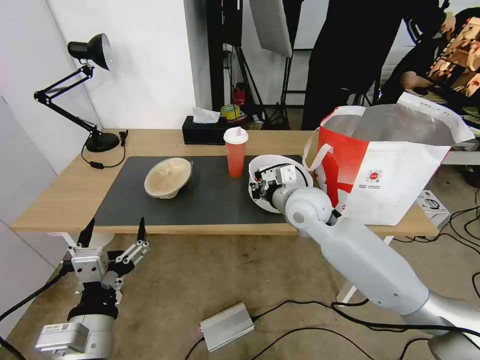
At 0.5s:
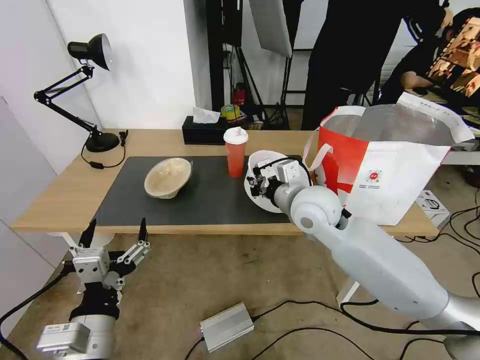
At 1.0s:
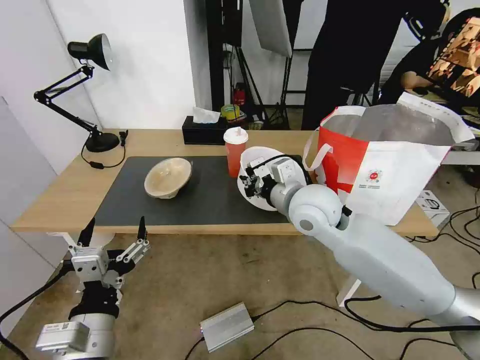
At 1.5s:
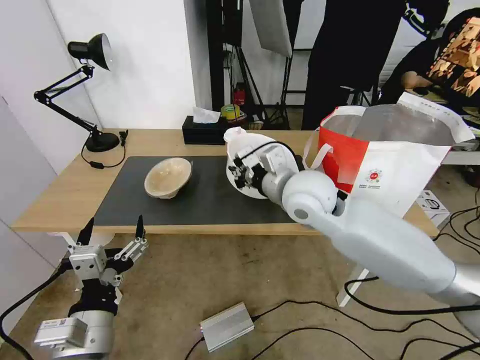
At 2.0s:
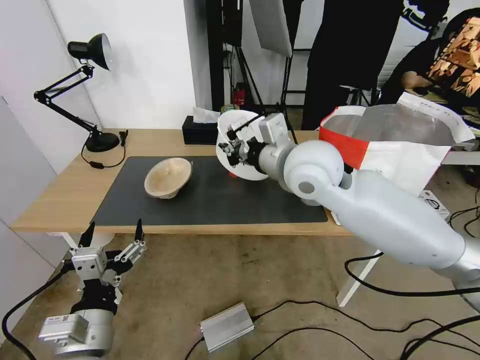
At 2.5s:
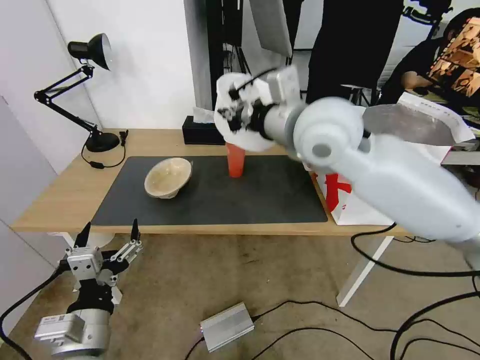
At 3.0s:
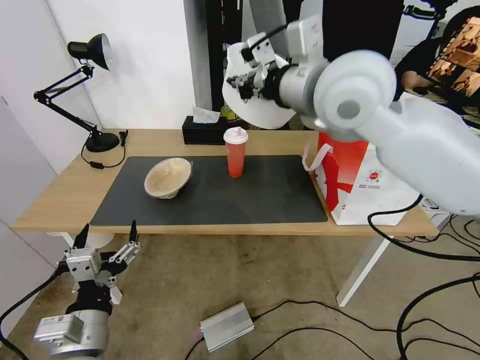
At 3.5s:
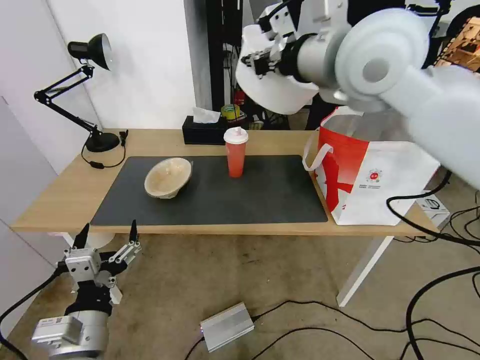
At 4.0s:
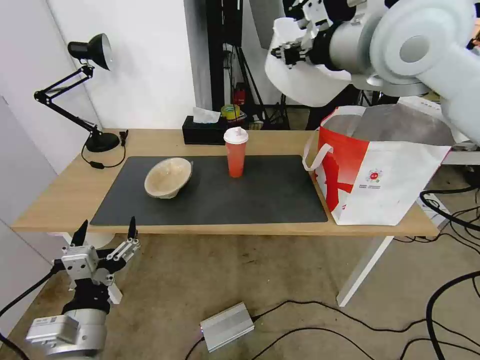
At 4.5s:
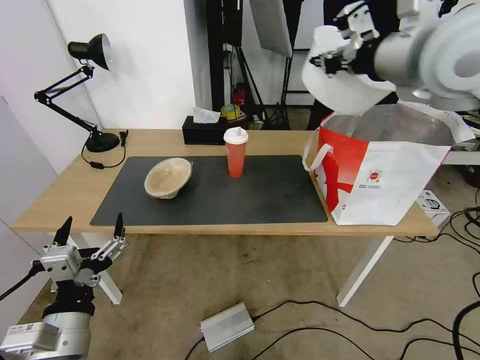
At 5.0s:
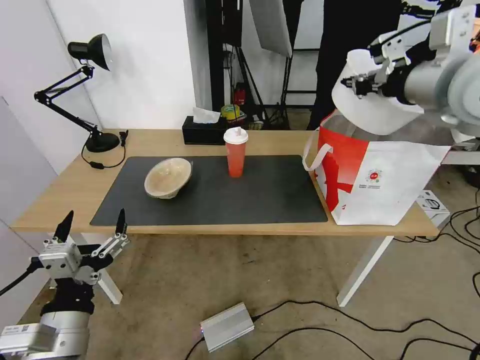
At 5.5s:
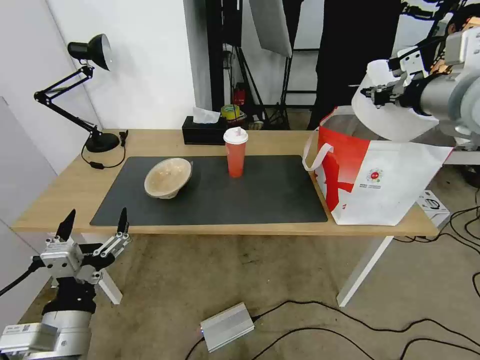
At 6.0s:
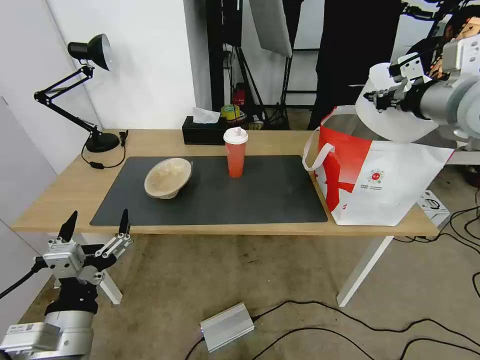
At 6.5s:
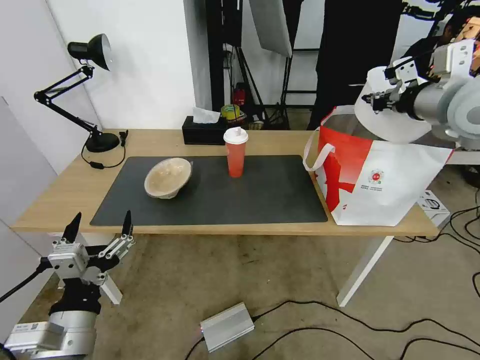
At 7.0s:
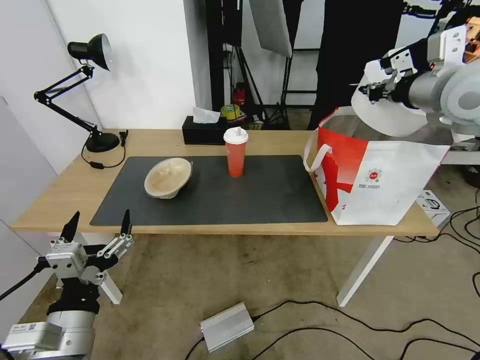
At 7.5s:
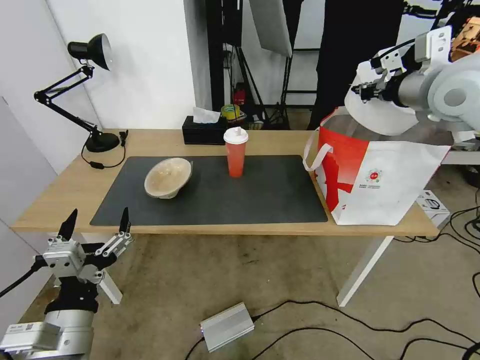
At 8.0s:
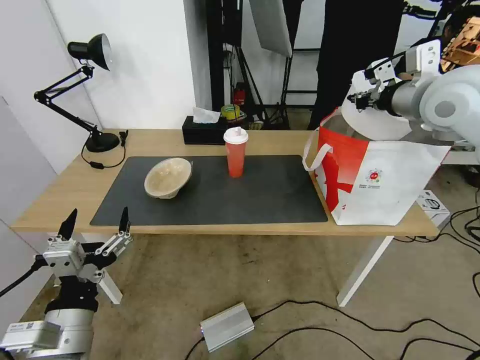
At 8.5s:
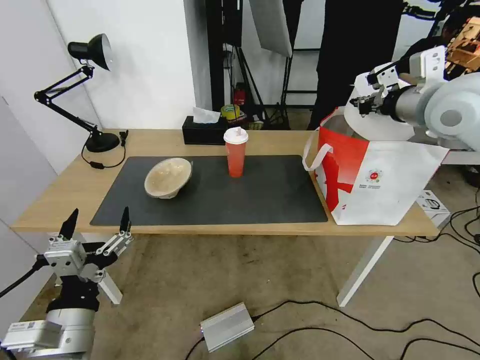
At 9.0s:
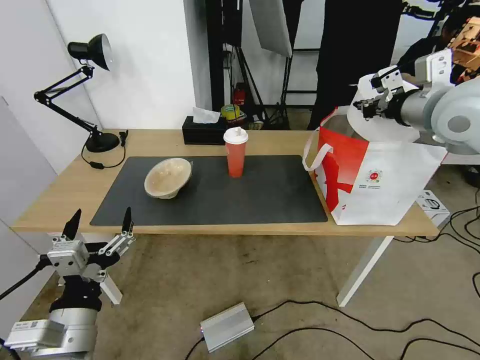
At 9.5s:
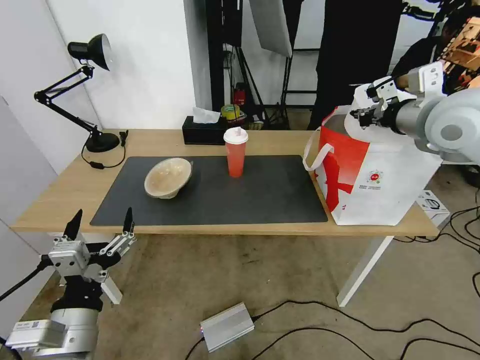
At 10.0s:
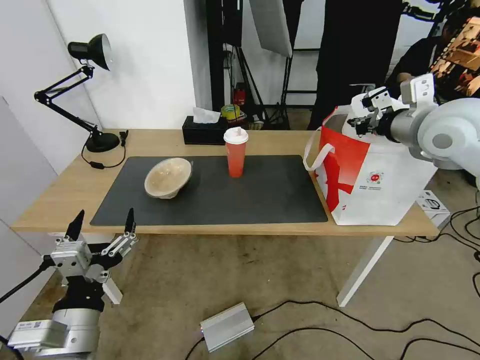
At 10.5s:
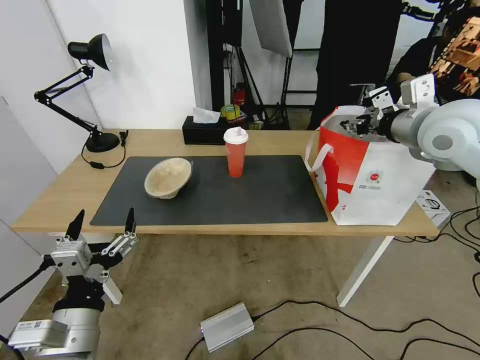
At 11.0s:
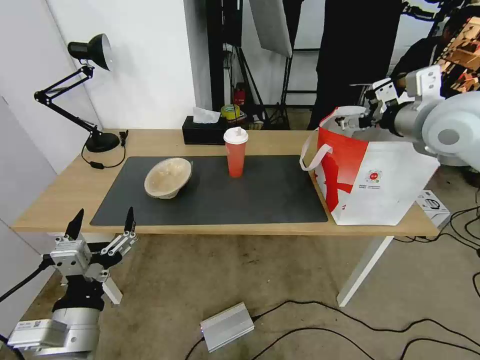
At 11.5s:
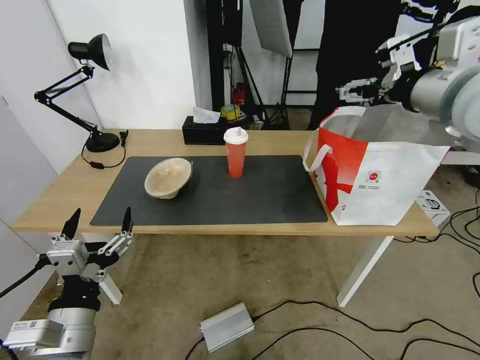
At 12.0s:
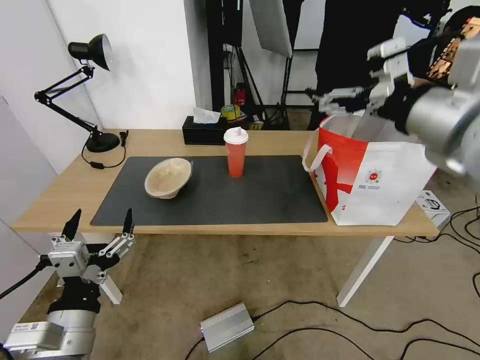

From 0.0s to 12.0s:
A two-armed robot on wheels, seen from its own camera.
Task of the whole recording: Pick up the trash from the table and place it into the takeout bag.
From 0.0s to 2.0s: The right gripper moves upward, some 15 cm.
From 2.0s to 4.0s: The right gripper travels upward and to the right by roughly 20 cm.
From 4.0s to 6.0s: The right gripper goes roughly 15 cm to the right and downward.
From 6.0s to 8.0s: The right gripper travels forward by some 5 cm.
From 8.0s to 10.0s: The grippers move only a little.
From 10.0s to 12.0s: The right gripper heads backward, to the left and upward, covering about 15 cm, and opens its fingers.

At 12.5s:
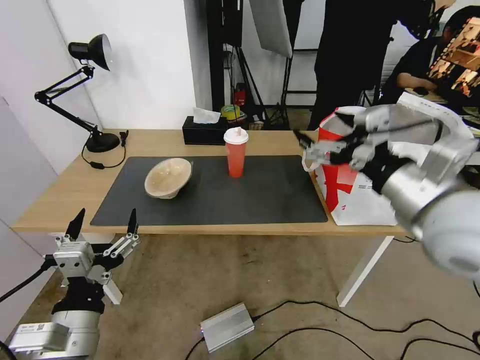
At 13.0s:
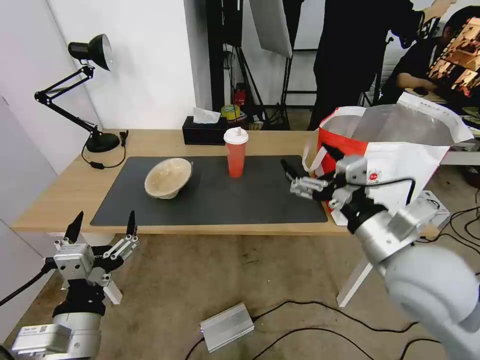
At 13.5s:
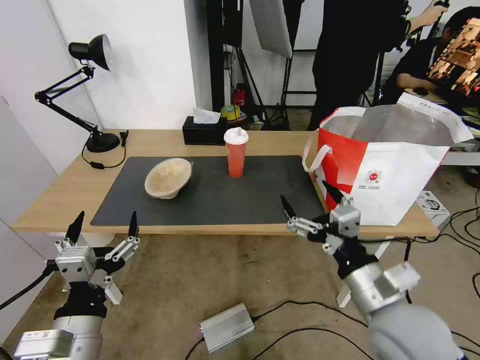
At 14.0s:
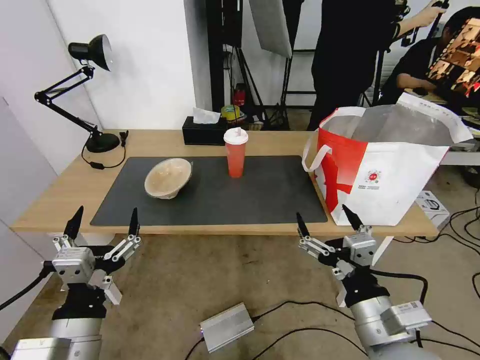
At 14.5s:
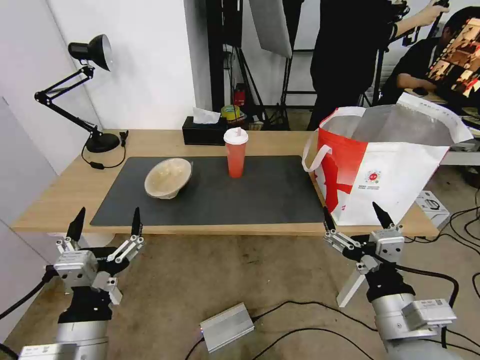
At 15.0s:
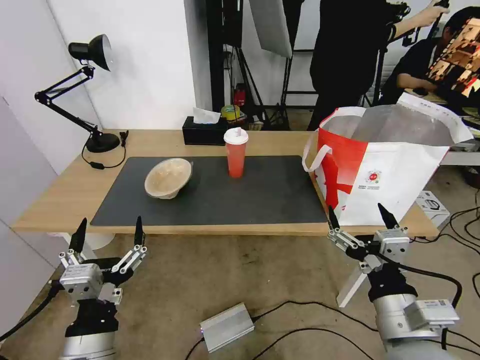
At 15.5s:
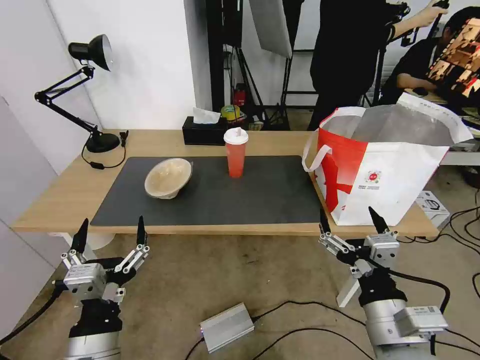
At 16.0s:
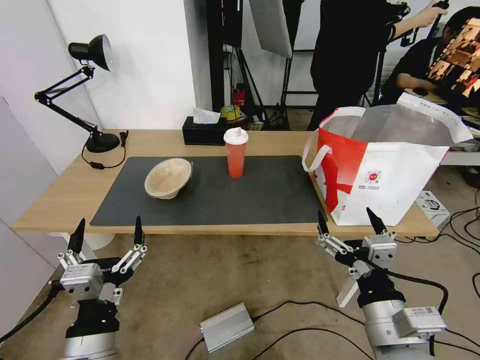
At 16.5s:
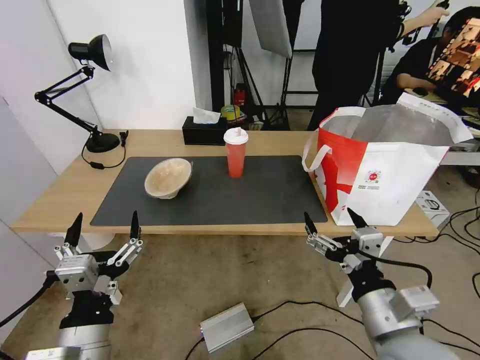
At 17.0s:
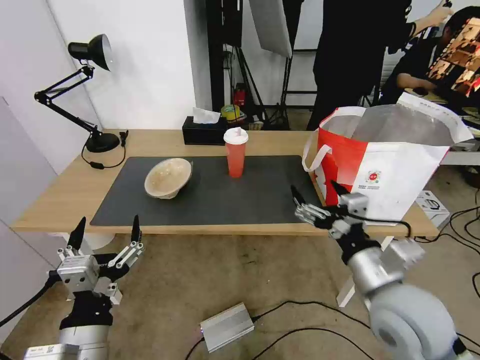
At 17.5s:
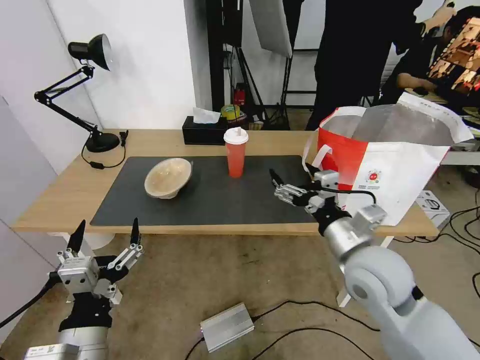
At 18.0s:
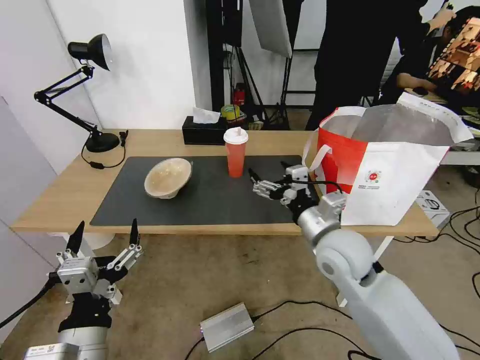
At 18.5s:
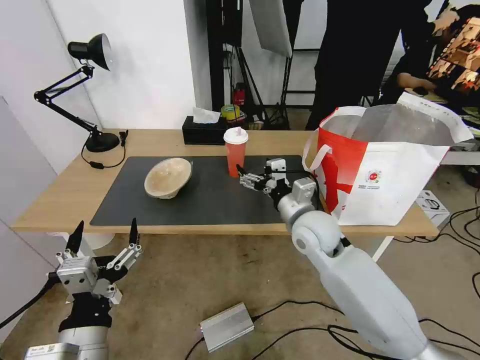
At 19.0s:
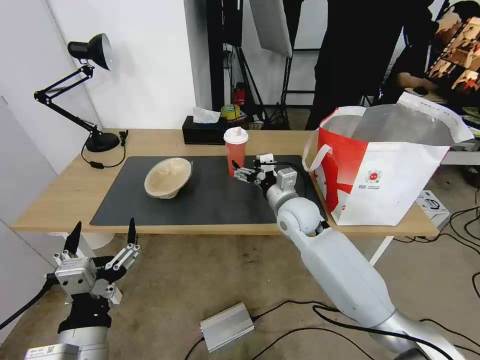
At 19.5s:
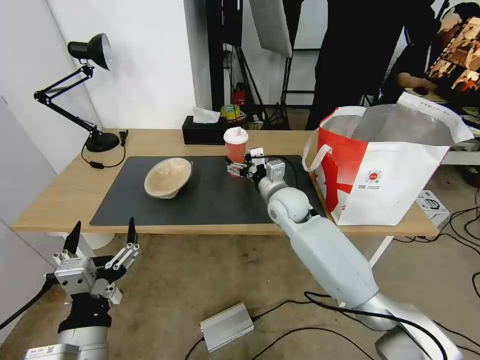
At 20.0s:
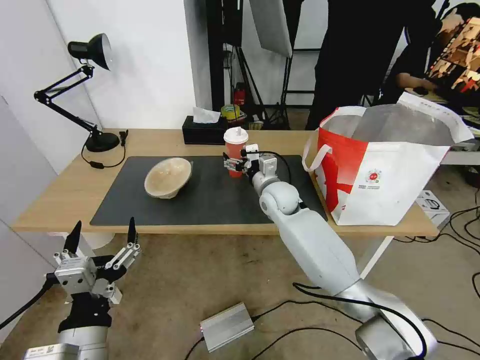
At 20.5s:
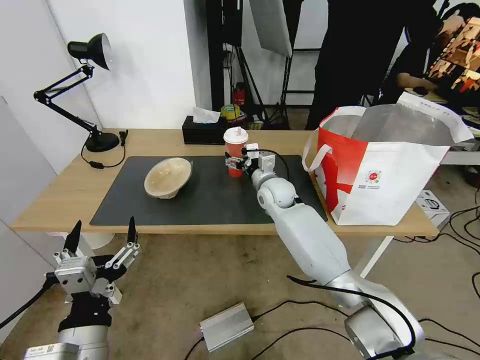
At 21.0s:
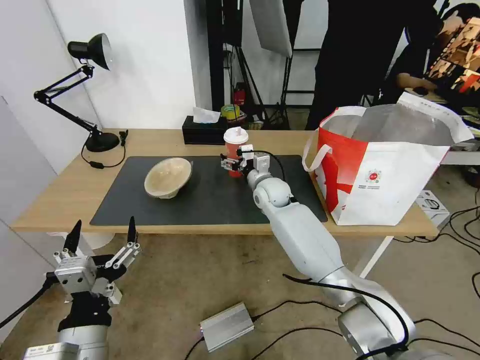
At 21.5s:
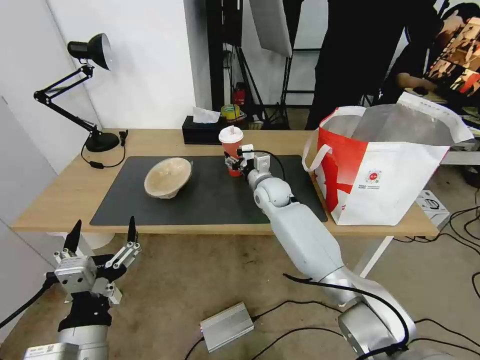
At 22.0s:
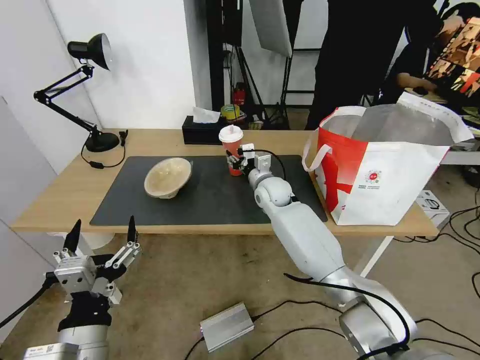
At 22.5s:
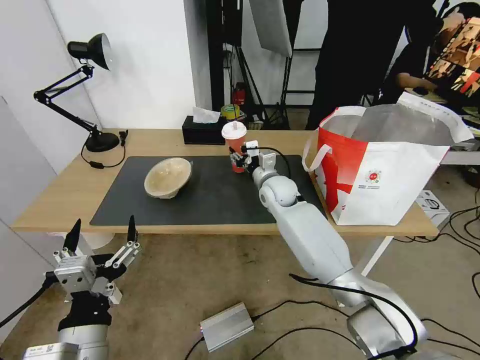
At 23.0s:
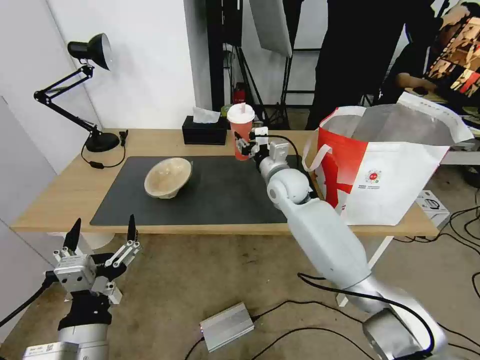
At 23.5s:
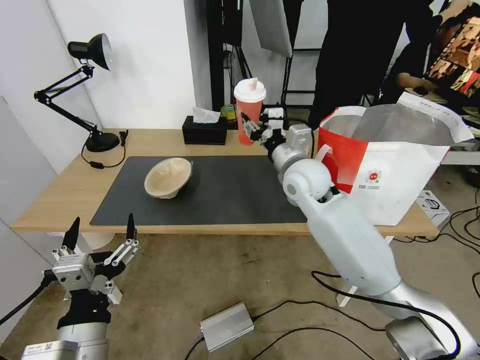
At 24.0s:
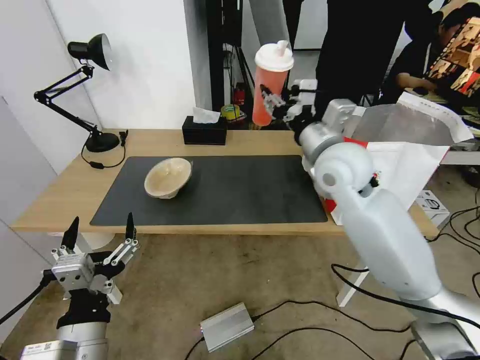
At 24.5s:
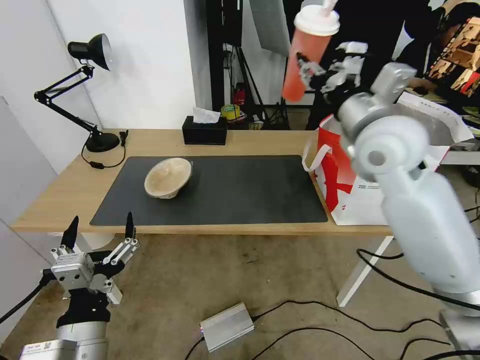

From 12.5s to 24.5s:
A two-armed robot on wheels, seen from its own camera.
Task of the whole recording: Pick up the trash from the table and place it into the takeout bag.
From 12.5s to 14.5s: The right gripper goes approximately 20 cm downward and backward.
From 14.5s to 16.5s: There are only small adjustments of the grippers.
From 16.5s to 18.5s: The right gripper heads forward, covering some 25 cm.
From 18.5s to 20.5s: The right gripper shifts approximately 15 cm forward.
From 20.5s to 22.5s: The right gripper closes its fingers.
From 22.5s to 24.5s: The right gripper is displaced upward, backward and to the right by some 30 cm.

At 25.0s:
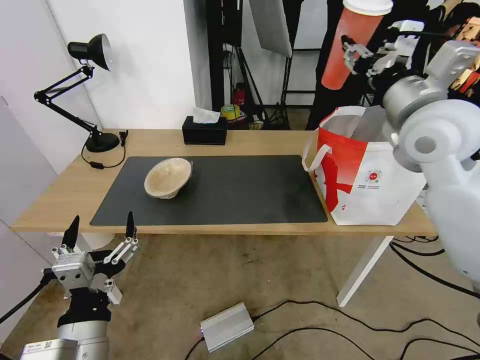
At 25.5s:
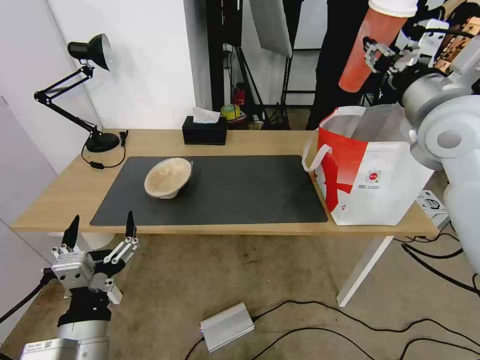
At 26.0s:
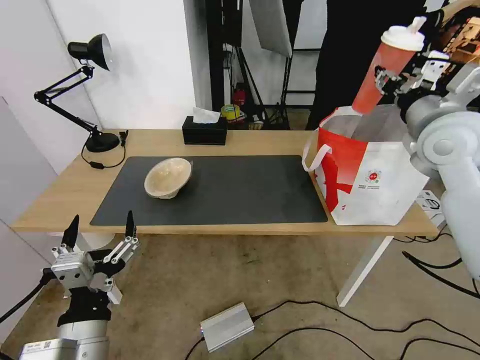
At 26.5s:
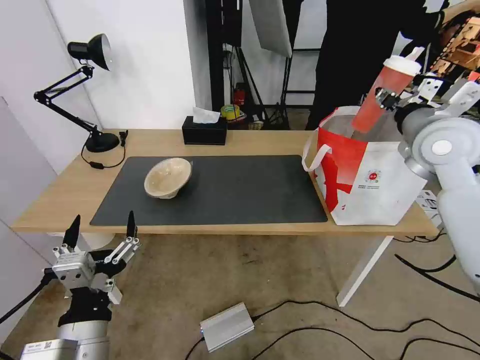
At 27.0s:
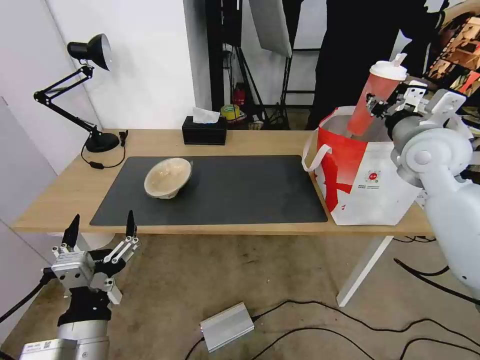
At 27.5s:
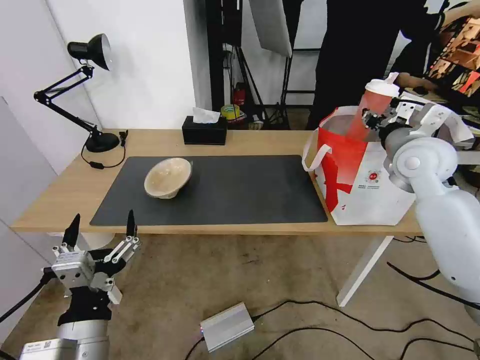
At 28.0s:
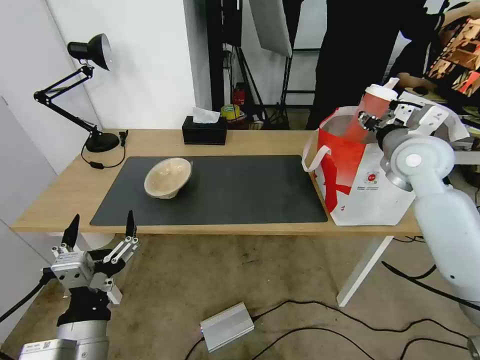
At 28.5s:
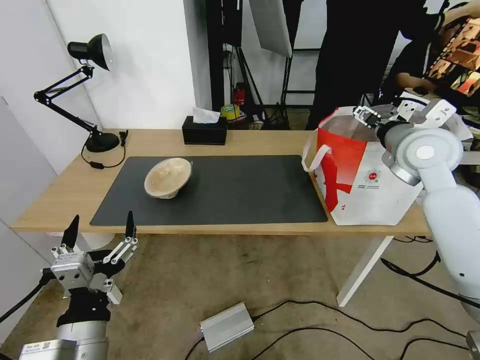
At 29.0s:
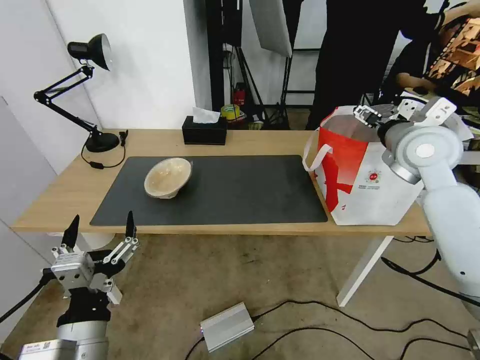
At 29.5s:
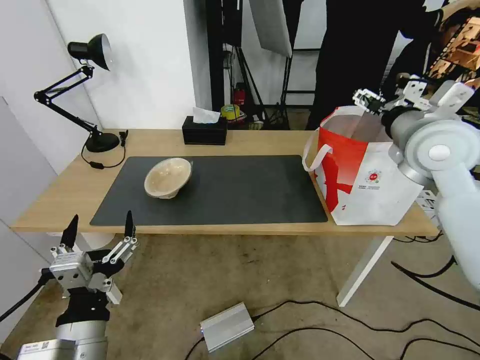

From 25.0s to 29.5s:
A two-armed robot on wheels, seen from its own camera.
Task of the whole recording: Pick up the trash from the table and place it into the takeout bag.
From 25.0s to 27.0s: The right gripper heads downward and to the right, covering roughly 10 cm.
From 27.0s to 29.5s: The right gripper opens.
